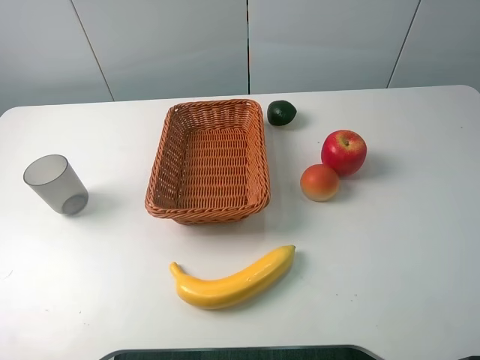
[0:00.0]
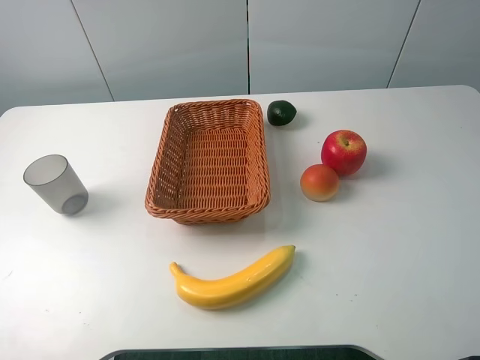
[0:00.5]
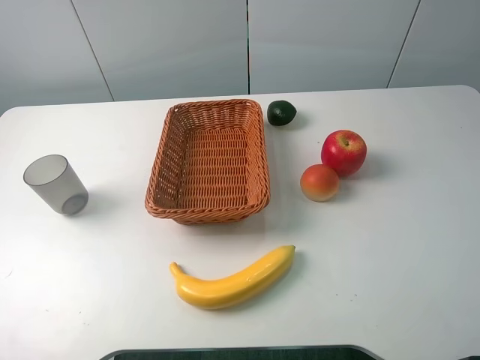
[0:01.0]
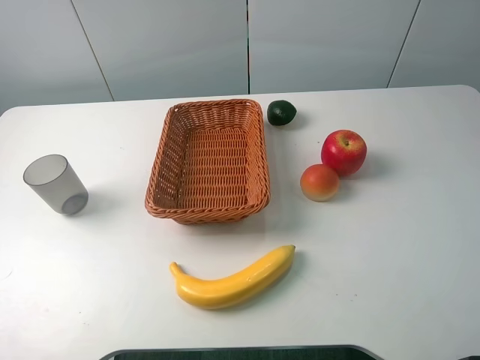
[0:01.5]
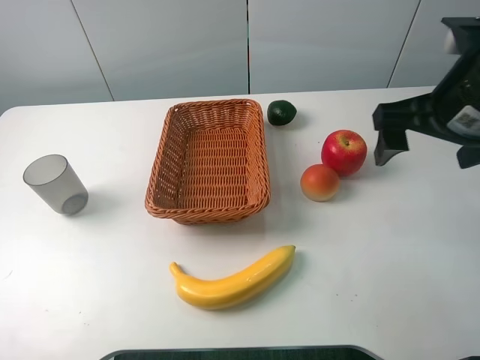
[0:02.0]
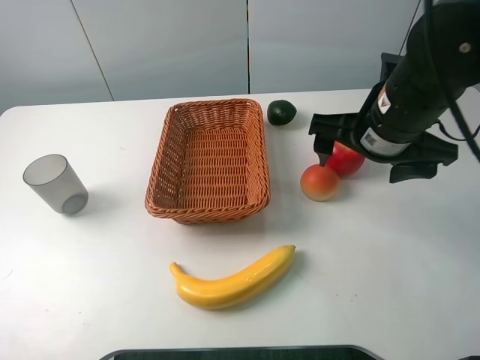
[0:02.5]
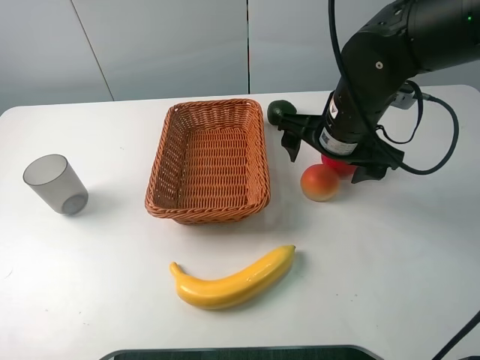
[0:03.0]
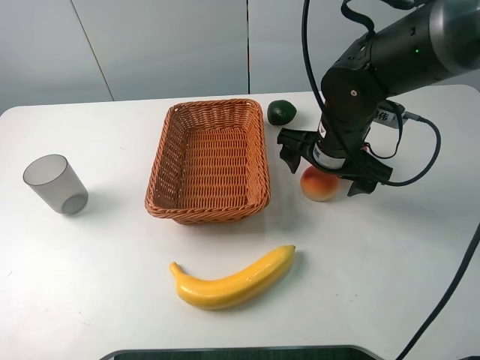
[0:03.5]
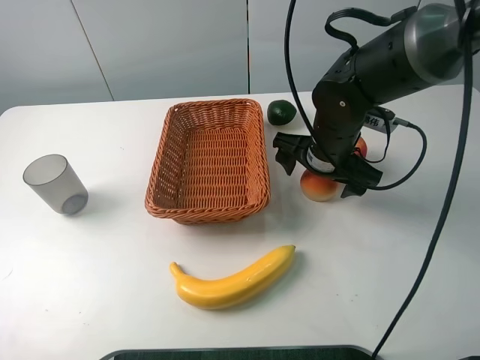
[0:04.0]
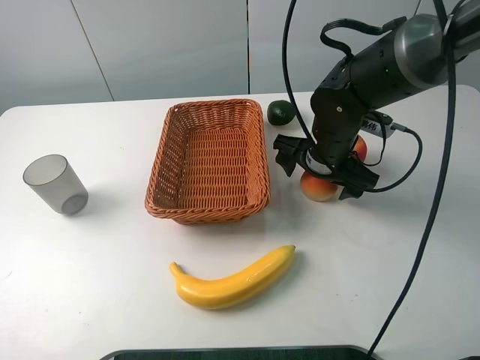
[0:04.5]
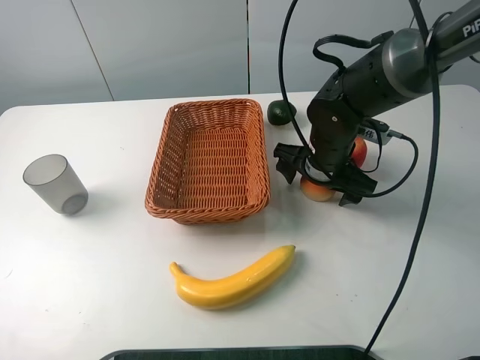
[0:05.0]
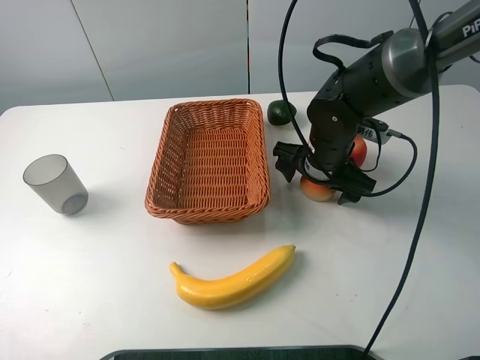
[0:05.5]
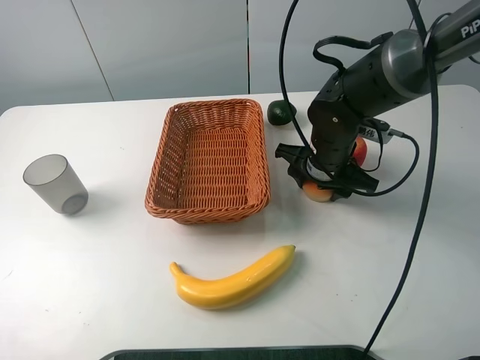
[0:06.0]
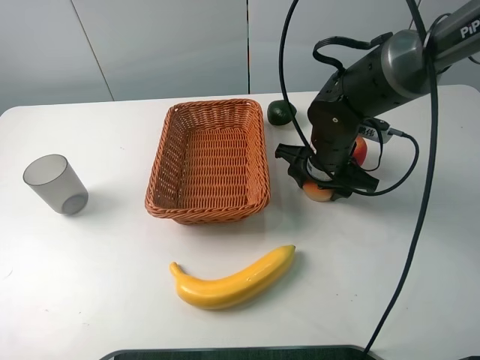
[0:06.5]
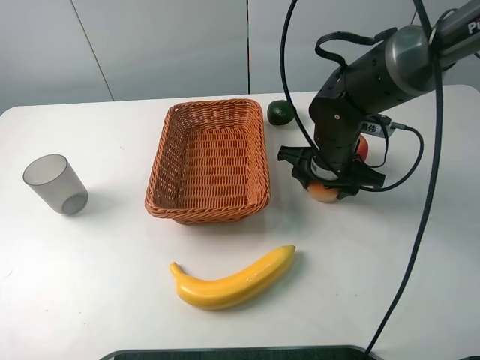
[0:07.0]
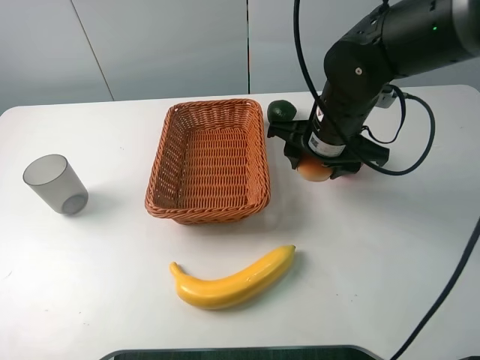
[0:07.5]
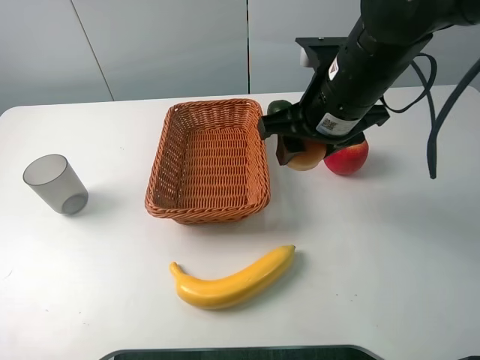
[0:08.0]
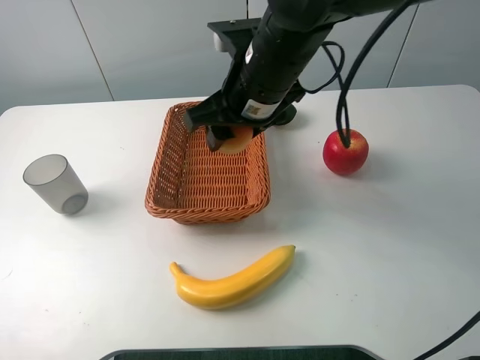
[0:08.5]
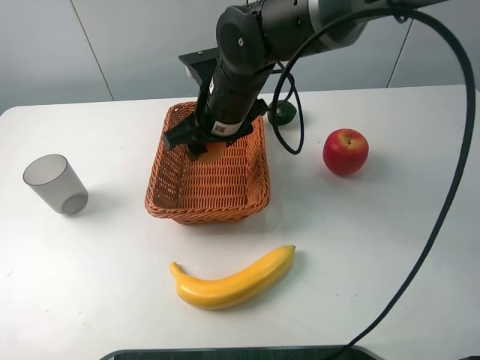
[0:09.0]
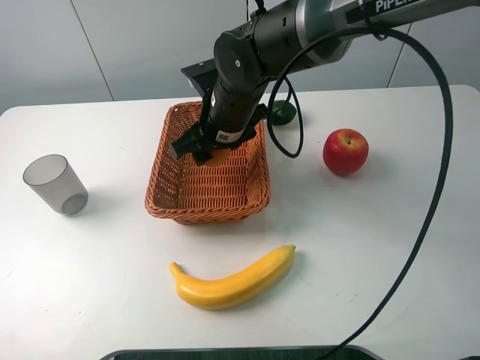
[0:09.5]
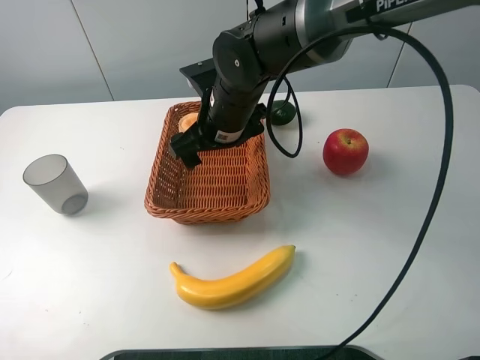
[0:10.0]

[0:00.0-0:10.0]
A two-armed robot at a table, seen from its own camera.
0:00.0 to 0:02.0: The right gripper heads forward and to the left, covering roughly 25 cm.
0:02.0 to 0:04.0: The right gripper shifts roughly 20 cm downward, to the left and forward.
0:04.0 to 0:06.0: The right gripper closes.
0:06.0 to 0:08.0: The right gripper is displaced upward by about 15 cm.
0:08.0 to 0:10.0: The right gripper is displaced to the left, downward and forward by approximately 15 cm, and opens its fingers.

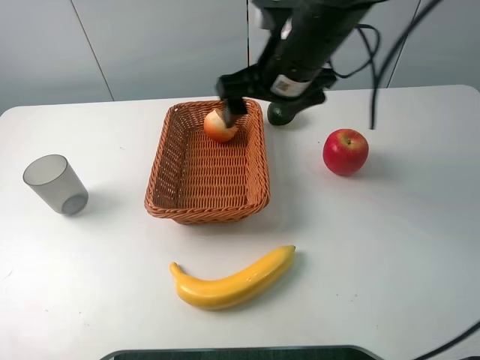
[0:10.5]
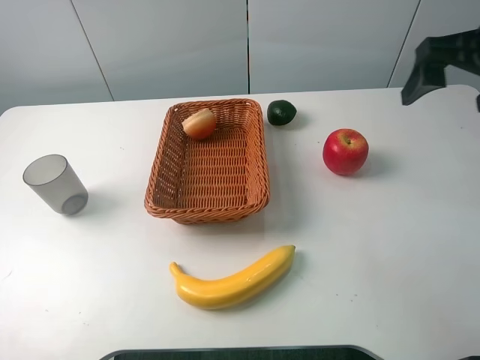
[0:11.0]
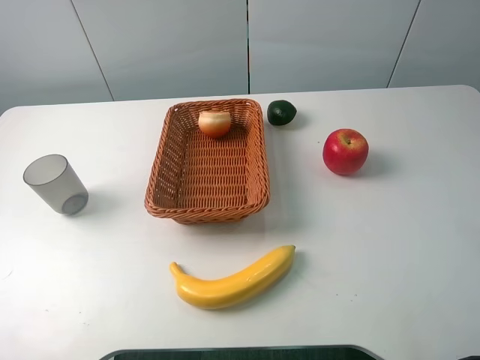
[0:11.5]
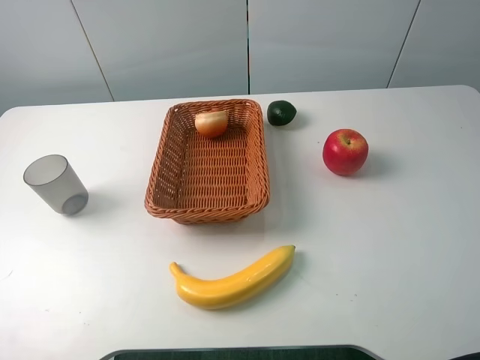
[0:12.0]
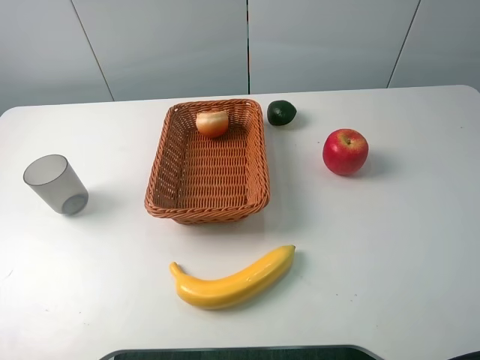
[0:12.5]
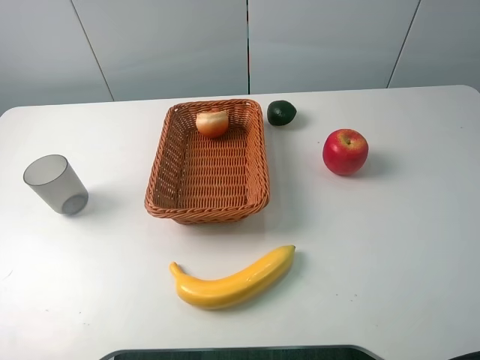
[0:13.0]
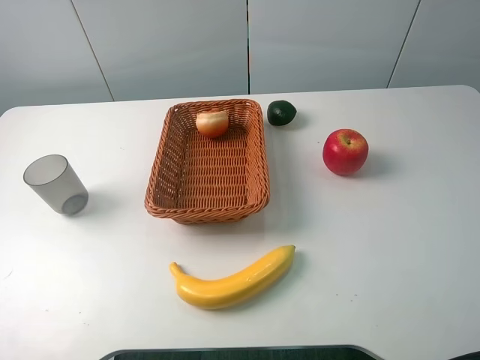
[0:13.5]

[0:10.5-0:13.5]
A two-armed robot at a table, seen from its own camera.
0:10.5 to 0:12.0: The right gripper is displaced backward and to the right by about 35 cm.
